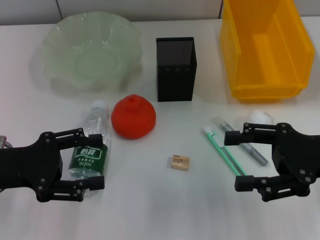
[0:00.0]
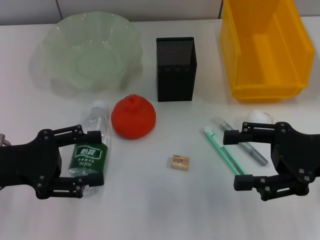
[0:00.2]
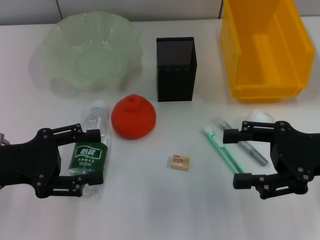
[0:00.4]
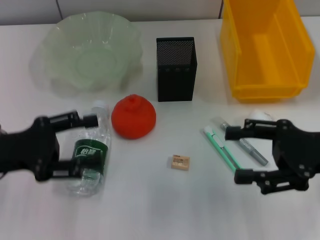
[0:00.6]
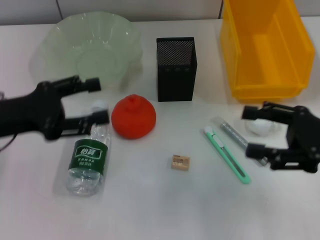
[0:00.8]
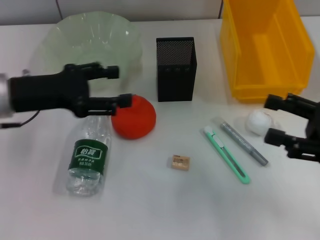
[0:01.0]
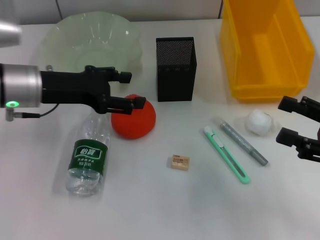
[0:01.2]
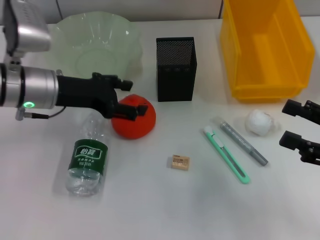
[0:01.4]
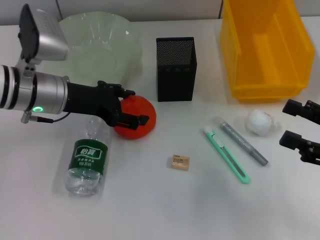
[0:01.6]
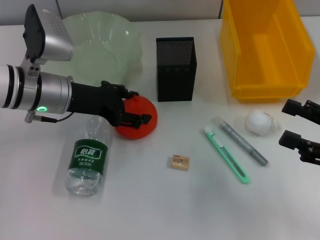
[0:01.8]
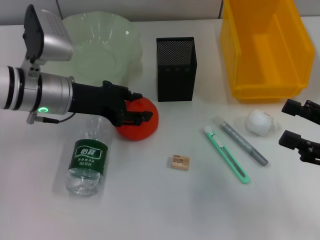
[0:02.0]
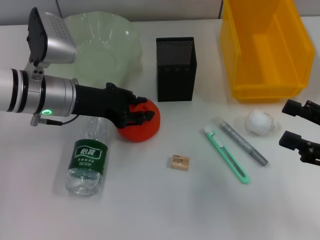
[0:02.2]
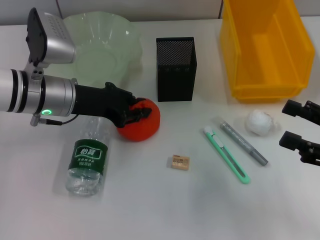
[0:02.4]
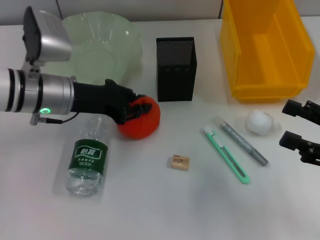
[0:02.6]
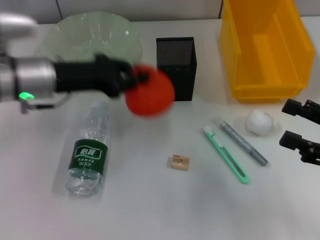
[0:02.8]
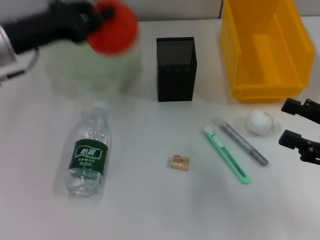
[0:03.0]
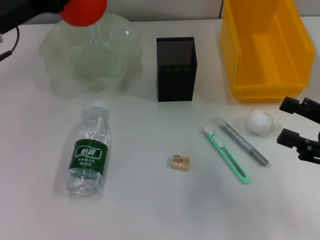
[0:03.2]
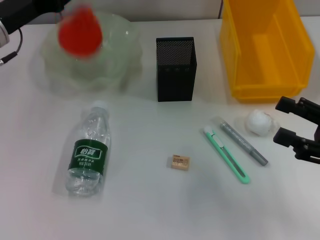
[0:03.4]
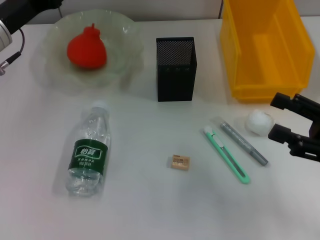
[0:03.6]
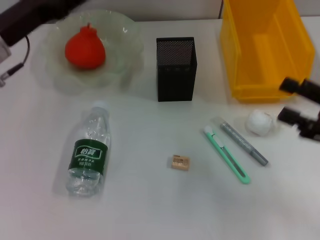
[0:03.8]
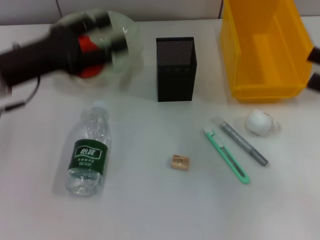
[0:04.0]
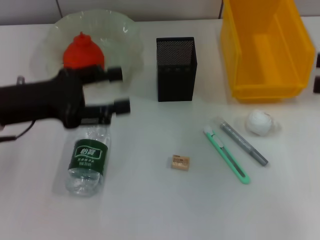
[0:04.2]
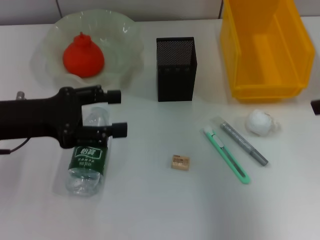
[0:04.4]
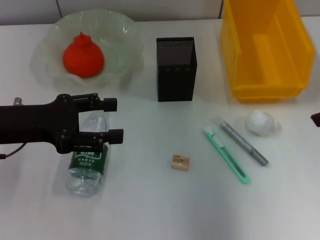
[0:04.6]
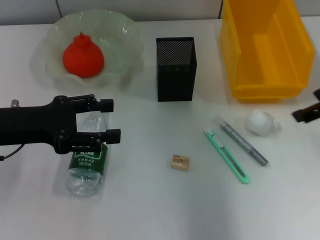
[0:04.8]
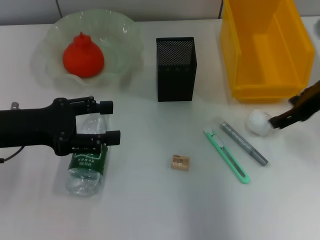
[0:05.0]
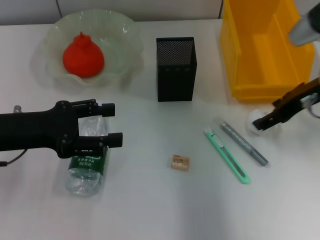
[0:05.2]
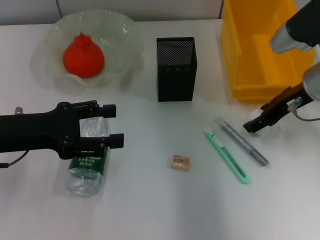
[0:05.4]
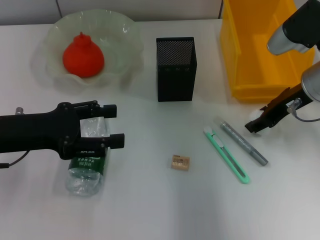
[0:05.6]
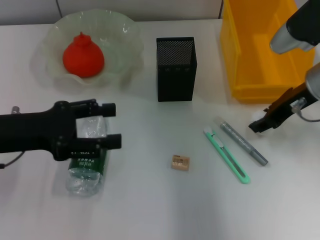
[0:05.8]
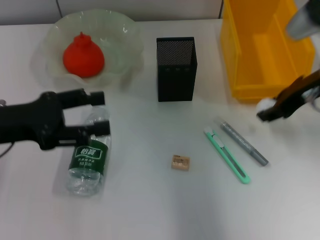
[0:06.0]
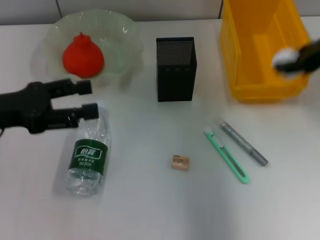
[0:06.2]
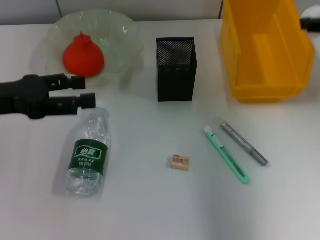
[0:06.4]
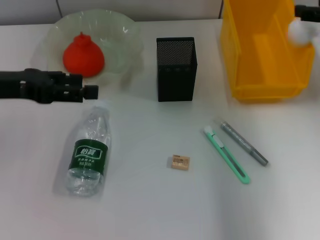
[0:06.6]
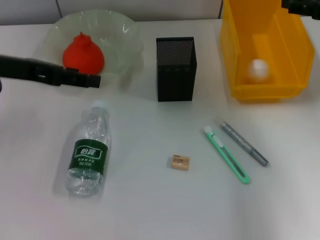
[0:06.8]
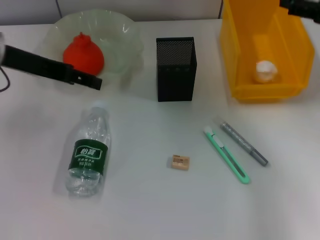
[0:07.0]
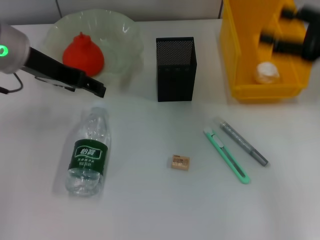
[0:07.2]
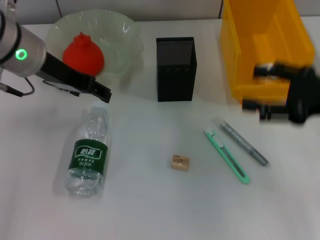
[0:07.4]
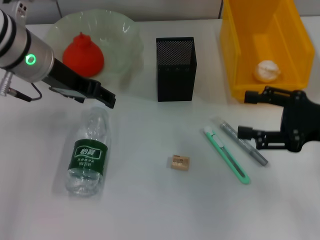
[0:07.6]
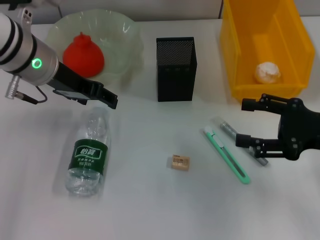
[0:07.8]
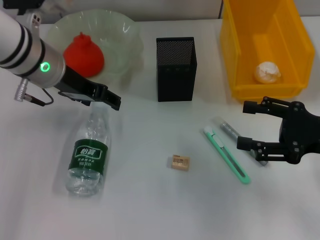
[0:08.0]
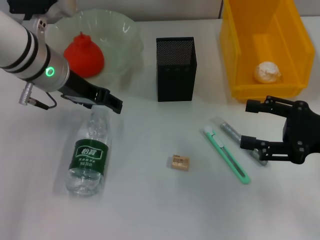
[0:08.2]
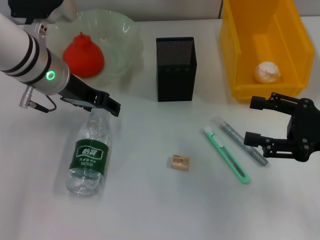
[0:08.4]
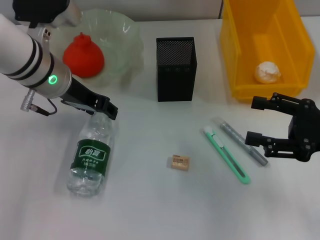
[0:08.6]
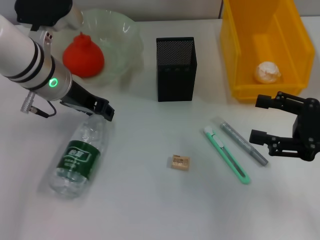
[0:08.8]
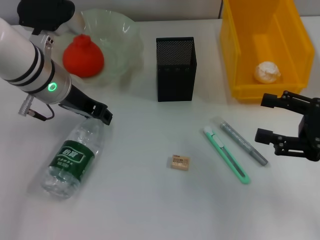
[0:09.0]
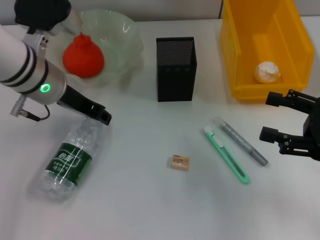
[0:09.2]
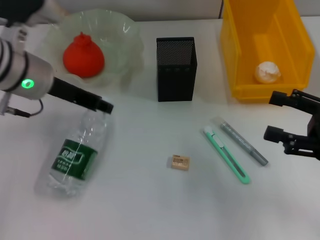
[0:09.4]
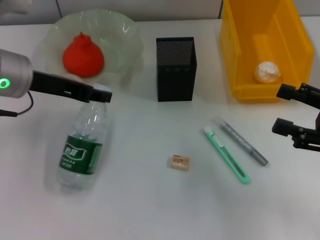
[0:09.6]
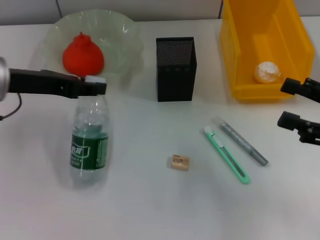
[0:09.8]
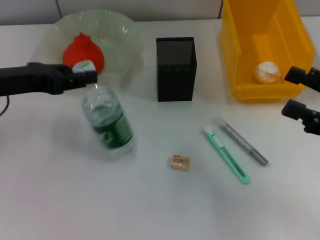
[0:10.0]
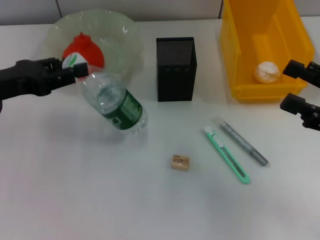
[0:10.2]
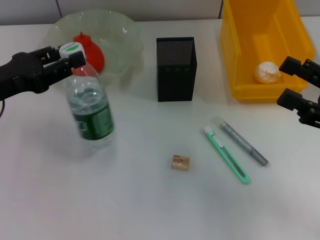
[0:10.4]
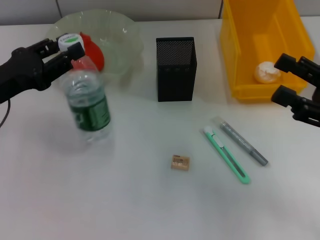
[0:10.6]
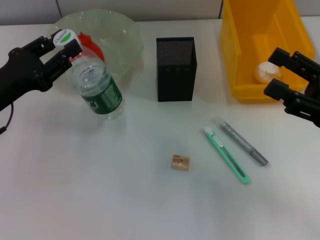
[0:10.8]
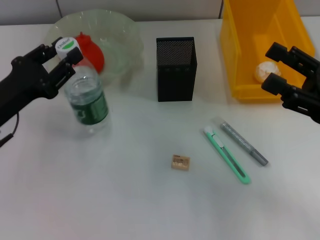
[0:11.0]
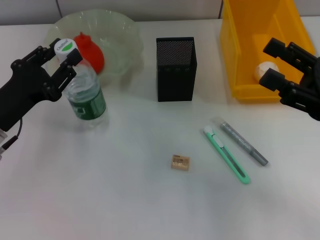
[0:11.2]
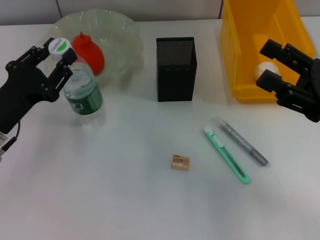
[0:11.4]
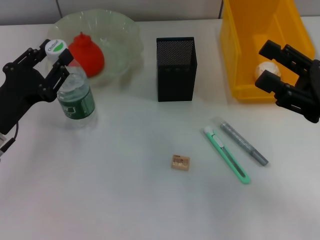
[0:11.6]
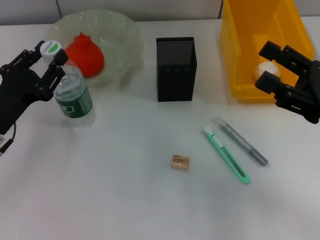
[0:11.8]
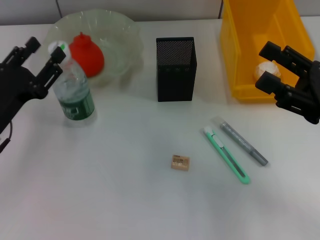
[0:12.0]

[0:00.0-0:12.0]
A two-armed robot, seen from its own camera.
Step, 0:00.0 to 0:02.2: Grab the orange with the left hand.
Step, 0:02.4 to 0:03.8: Place the orange into the fruit bowl with the left hand.
Step, 0:04.2 to 0:05.6: Grab the paper ball with the right hand.
Step, 0:05.8 to 0:06.8: Place the paper ball into the trash can with the right hand.
Step, 0:07.2 to 0:08.8: Grab the water bottle with the left hand.
0:00.0 to 0:01.6: The left gripper heads forward and to the right, covering approximately 15 cm. Meanwhile the right gripper goes roughly 5 cm to the right.
0:01.6 to 0:03.0: The left gripper heads upward, covering approximately 5 cm, and closes up.
0:03.0 to 0:04.4: The left gripper goes about 5 cm backward, and opens. Meanwhile the right gripper heads upward, covering some 15 cm.
0:04.4 to 0:06.0: The right gripper travels to the left, forward and downward by approximately 15 cm, and closes its fingers.
0:06.0 to 0:07.6: The left gripper moves forward, to the right and upward, about 15 cm; the right gripper travels backward, downward and to the right by about 10 cm, and opens up.
0:07.6 to 0:09.0: The left gripper closes up.
0:09.0 to 0:10.4: The left gripper travels to the left and backward by about 15 cm.
0:10.4 to 0:12.0: The left gripper shifts some 10 cm downward.

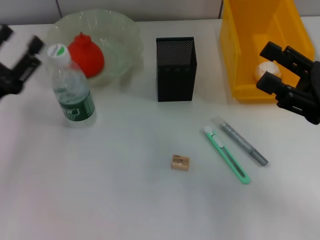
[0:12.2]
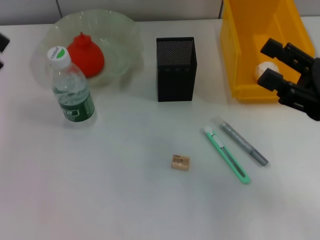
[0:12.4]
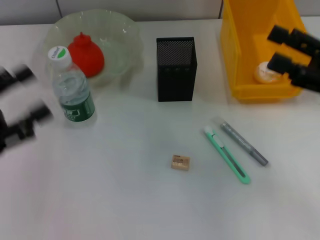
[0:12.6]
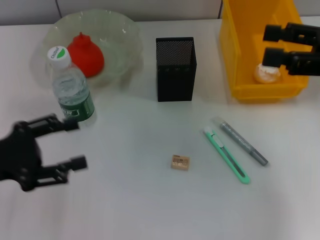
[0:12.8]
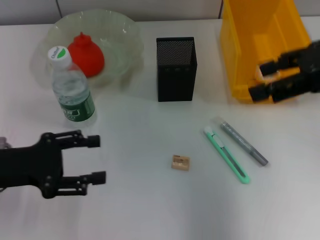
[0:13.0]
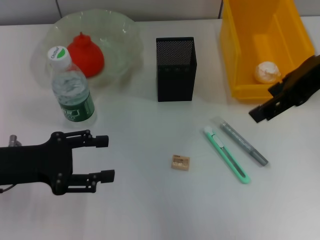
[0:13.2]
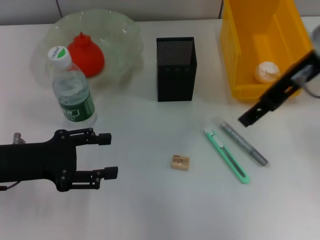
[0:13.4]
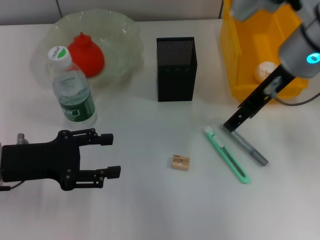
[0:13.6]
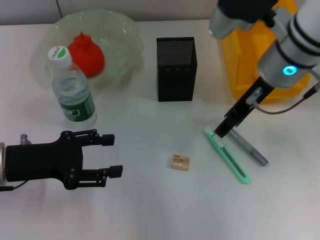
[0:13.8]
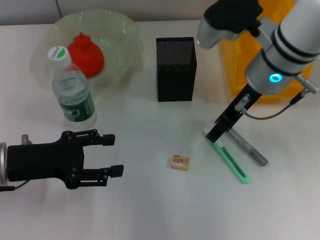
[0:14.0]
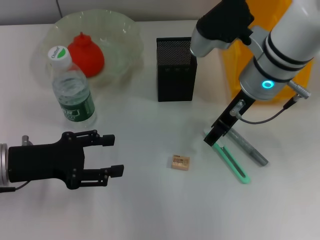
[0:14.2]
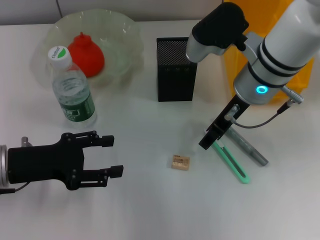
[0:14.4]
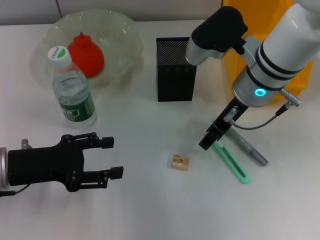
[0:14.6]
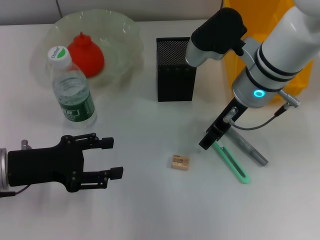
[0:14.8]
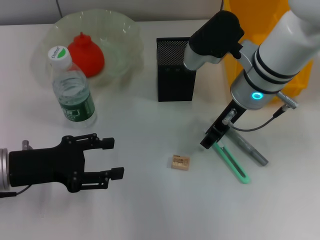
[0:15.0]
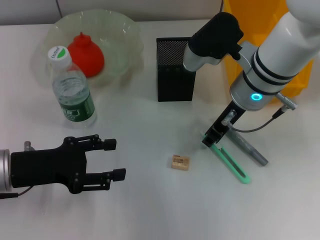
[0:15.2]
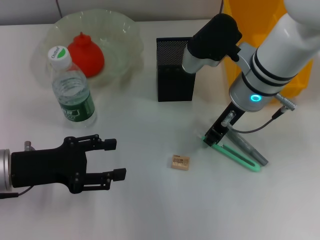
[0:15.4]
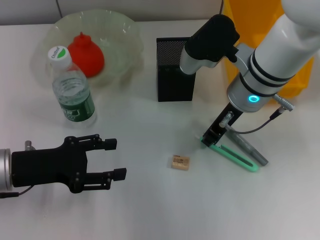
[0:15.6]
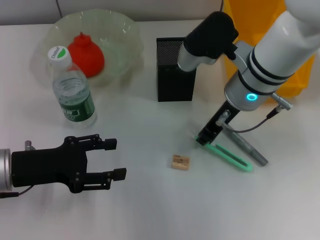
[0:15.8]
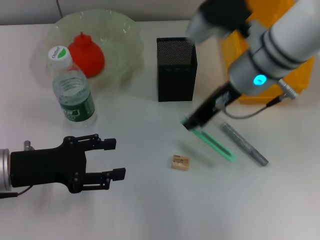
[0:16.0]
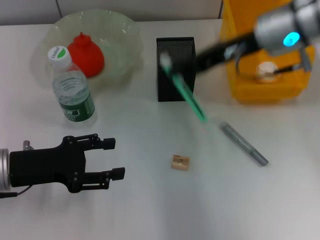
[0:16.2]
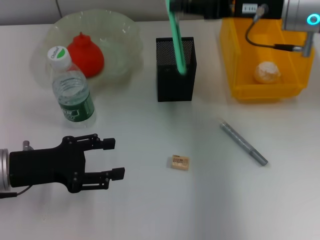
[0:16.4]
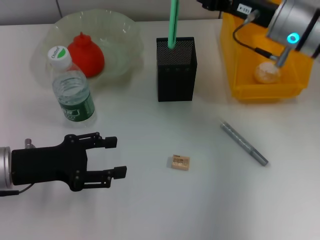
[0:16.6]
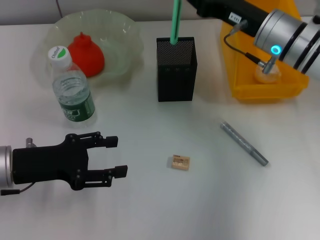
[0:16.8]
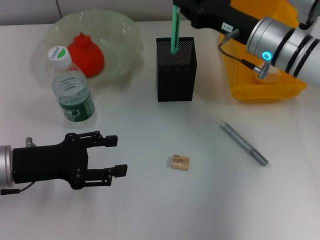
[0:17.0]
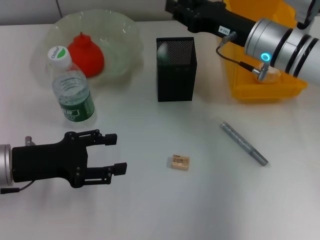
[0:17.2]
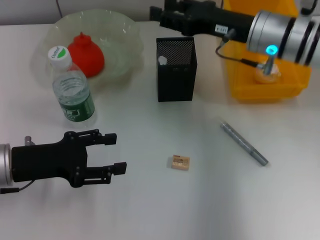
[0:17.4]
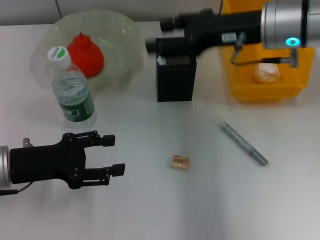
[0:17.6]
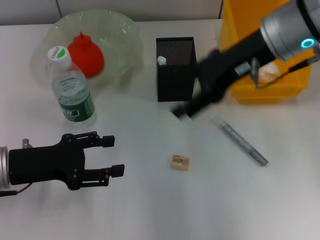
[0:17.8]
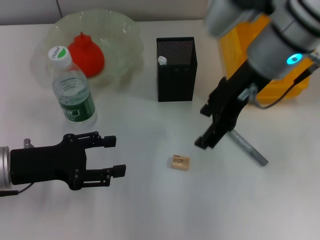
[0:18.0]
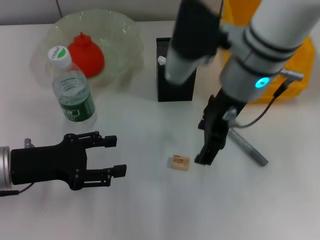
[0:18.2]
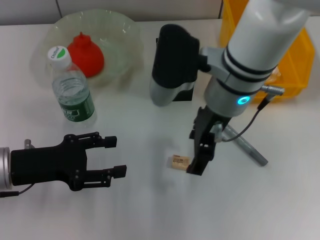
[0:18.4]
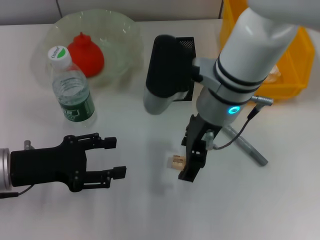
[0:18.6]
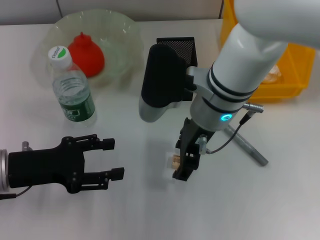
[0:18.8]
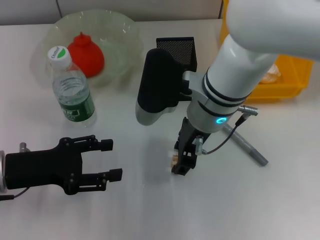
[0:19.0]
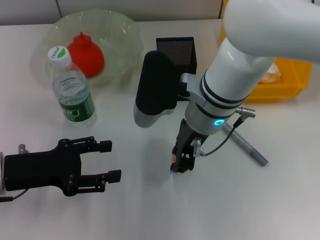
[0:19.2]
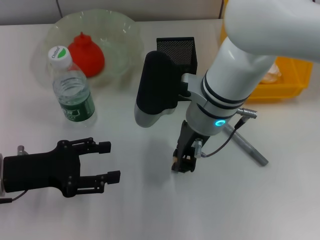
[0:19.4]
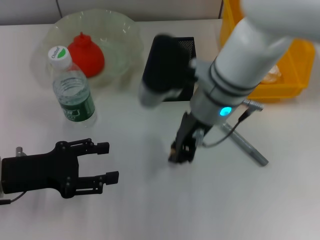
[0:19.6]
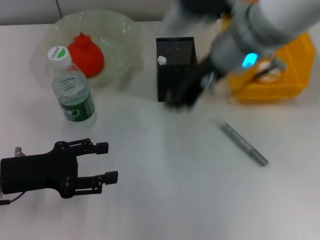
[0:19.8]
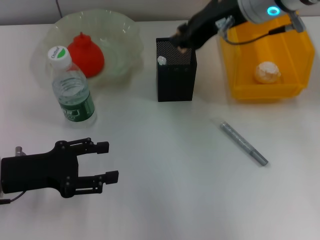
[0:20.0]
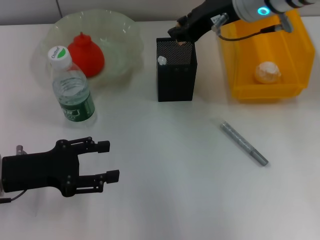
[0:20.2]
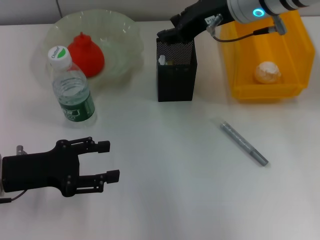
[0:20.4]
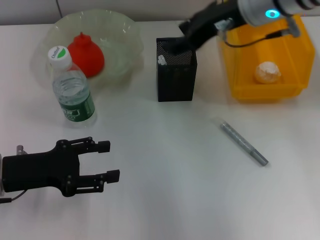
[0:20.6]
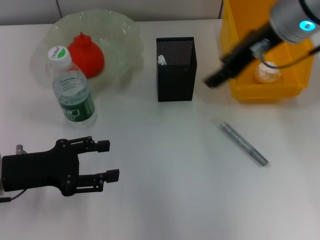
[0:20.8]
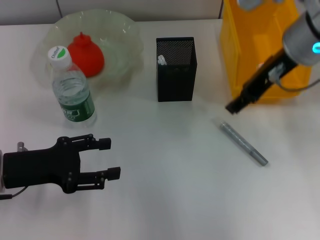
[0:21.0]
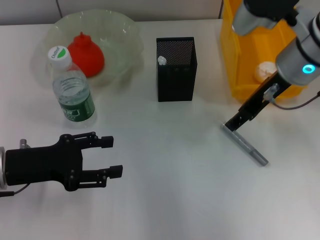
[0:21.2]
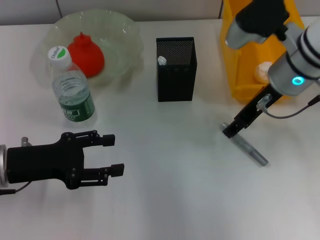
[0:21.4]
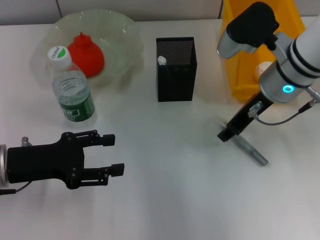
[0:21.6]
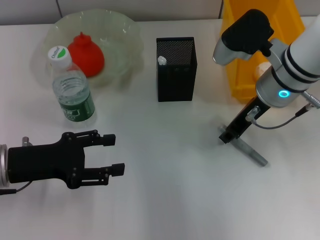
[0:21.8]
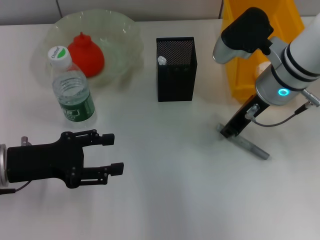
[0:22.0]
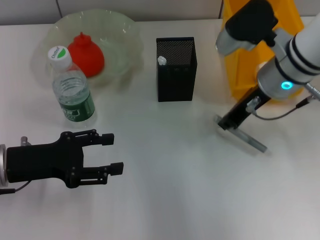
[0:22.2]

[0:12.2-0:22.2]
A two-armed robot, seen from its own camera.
Step, 0:13.0 to 0:15.6: Grab the blue utility knife with the right hand.
Step, 0:15.8 to 0:17.6: Place the blue utility knife into the pen holder with the right hand.
Step, 0:17.8 to 0:19.2: Grab the eraser with the right hand.
Step, 0:19.4 to 0:20.4: Put the eraser into the pen holder with the right hand.
Step, 0:20.8 to 0:22.0: Grab the gray glue with the right hand.
0:12.2 to 0:13.6: The right gripper shifts some 20 cm to the left, forward and upward.
0:13.6 to 0:15.0: The right gripper goes approximately 5 cm downward.
0:15.0 to 0:16.4: The right gripper goes some 10 cm to the right and upward, and closes its fingers.
0:16.4 to 0:18.0: The right gripper is displaced to the left by some 10 cm, moves about 10 cm downward and comes back, and opens.
0:18.0 to 0:19.4: The right gripper is displaced downward and to the left by about 10 cm, and closes.
0:19.4 to 0:20.8: The right gripper moves to the right and upward, some 15 cm, and opens its fingers.
0:20.8 to 0:22.2: The right gripper is displaced downward by about 10 cm, and closes.
